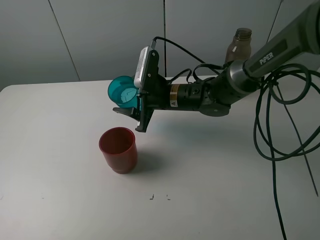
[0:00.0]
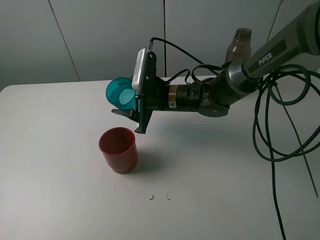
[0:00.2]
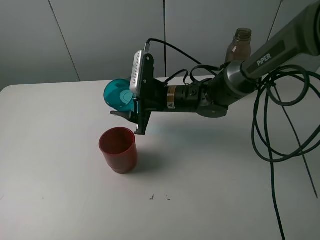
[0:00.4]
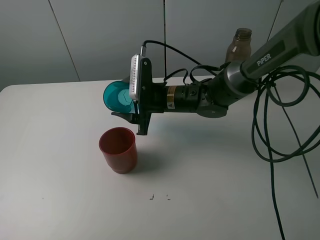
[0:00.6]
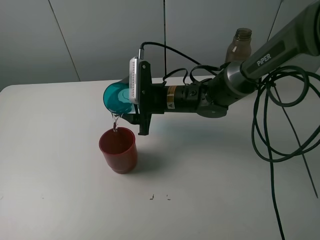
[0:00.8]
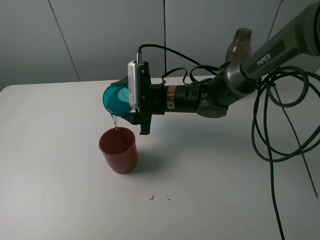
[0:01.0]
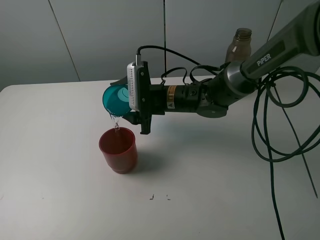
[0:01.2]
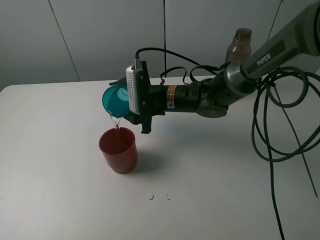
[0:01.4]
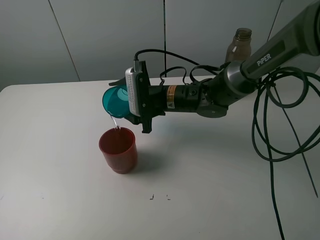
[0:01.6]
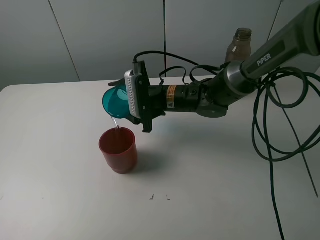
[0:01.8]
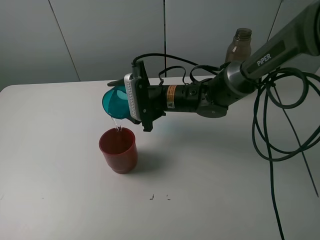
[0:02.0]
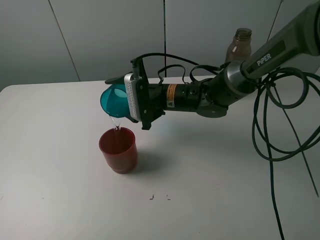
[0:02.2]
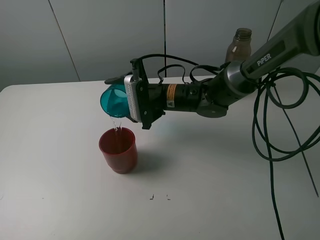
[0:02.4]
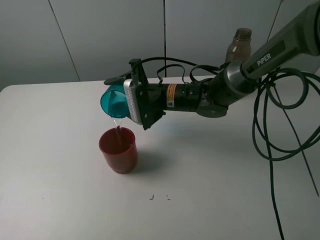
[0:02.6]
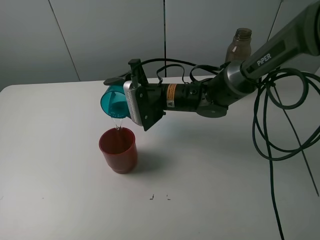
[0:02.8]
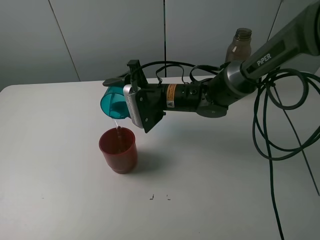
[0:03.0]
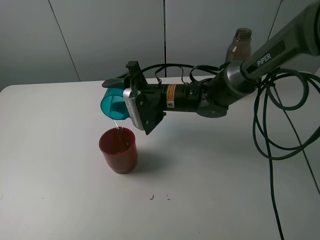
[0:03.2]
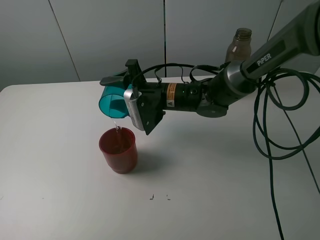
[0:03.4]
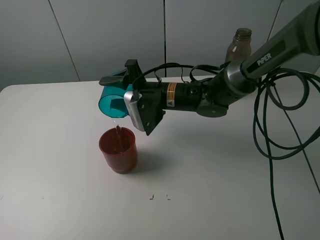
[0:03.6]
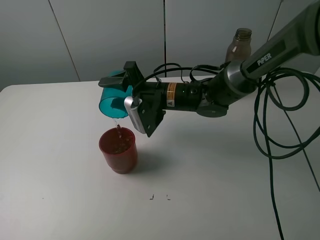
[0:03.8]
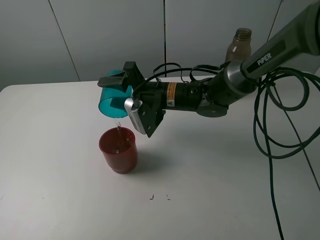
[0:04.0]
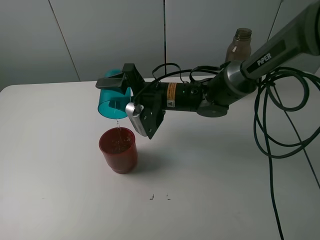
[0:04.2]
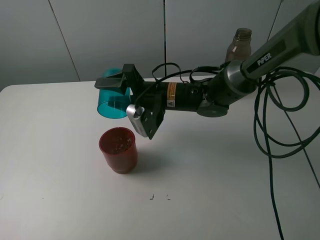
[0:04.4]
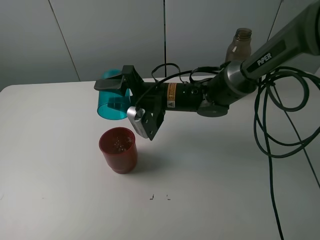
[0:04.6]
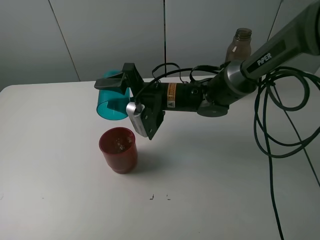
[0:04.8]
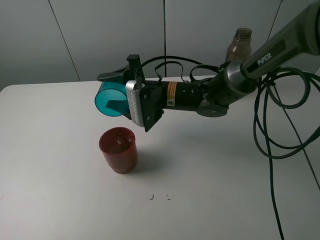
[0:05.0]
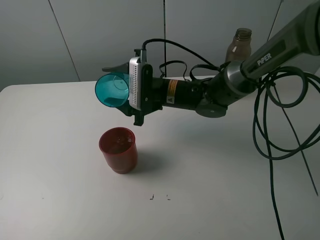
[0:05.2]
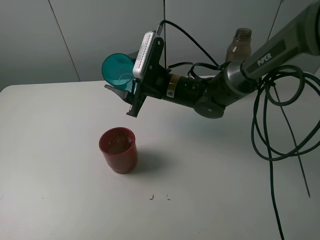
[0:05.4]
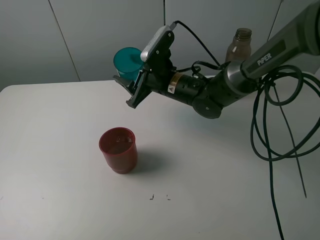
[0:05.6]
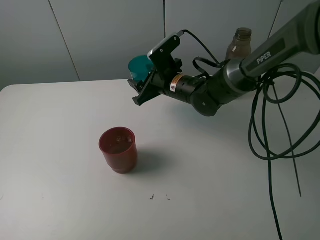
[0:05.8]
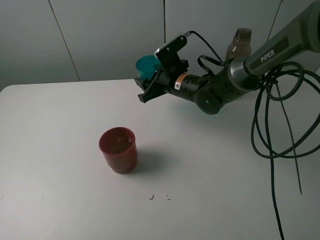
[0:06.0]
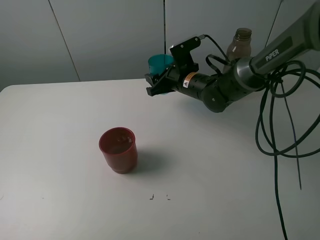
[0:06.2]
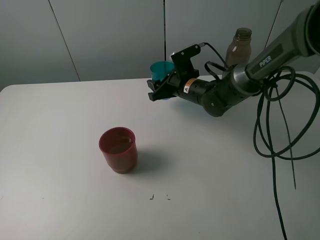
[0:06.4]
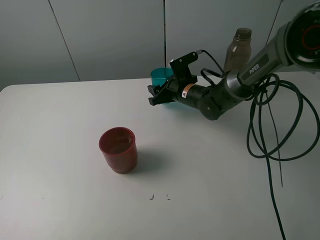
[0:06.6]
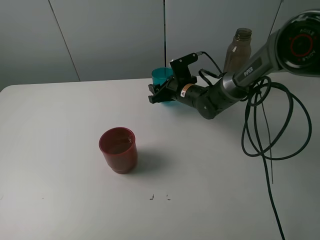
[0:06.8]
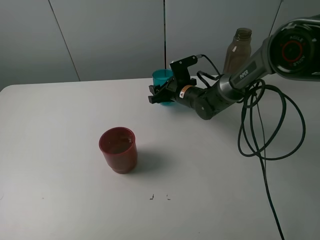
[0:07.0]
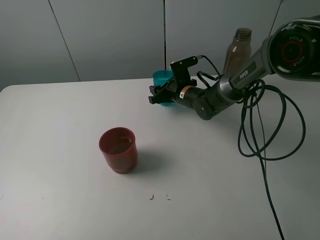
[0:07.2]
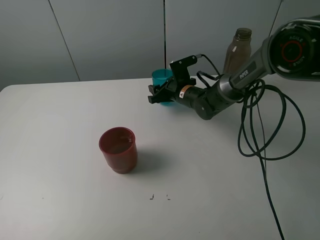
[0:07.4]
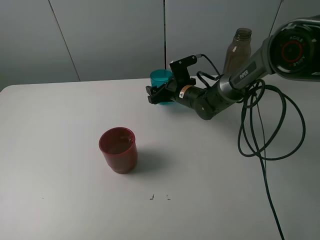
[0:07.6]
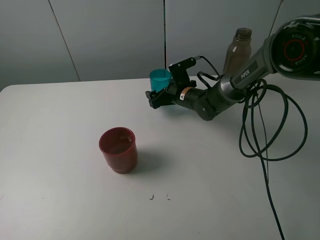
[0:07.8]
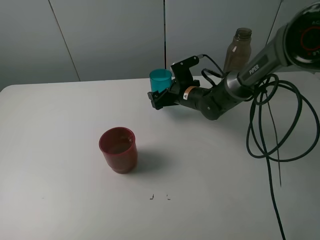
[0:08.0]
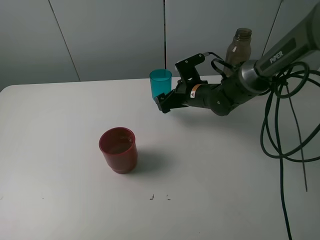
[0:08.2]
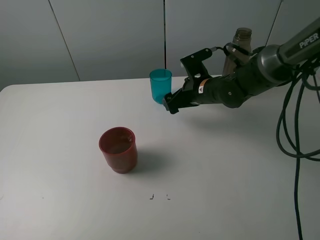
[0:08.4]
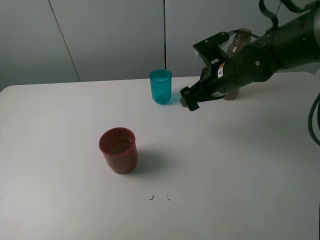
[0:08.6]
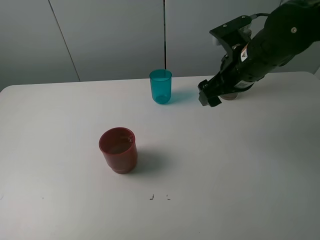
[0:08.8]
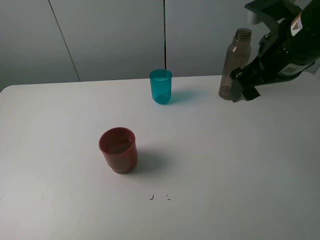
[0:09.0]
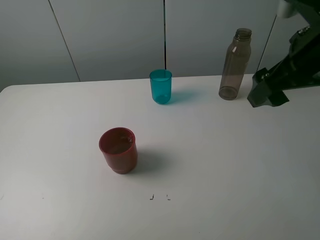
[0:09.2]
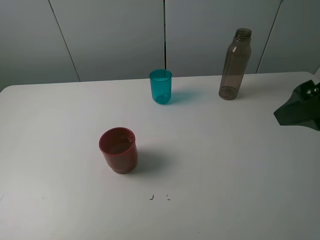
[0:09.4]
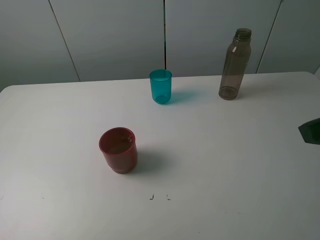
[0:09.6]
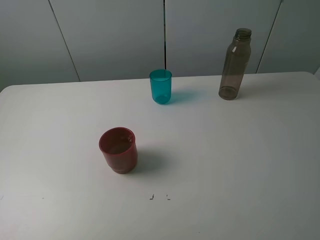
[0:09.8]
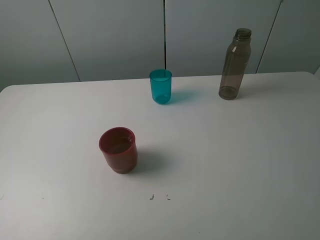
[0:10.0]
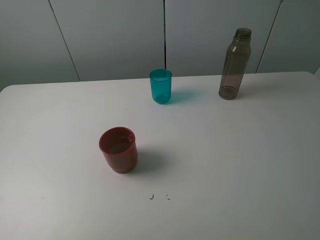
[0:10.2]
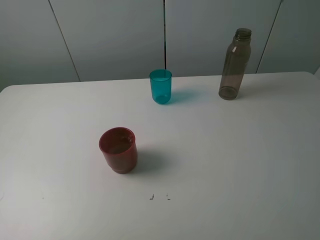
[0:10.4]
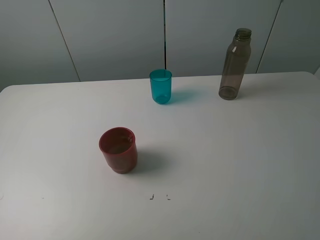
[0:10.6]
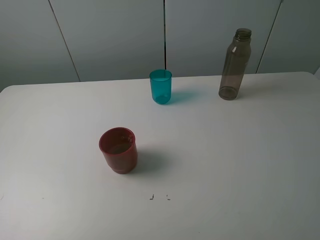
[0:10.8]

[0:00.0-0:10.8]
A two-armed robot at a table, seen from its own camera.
Task of the whole recording: pick up the bottle and pour water into the cup, then pick up the cup containing water and pour it into another cup.
Step, 0:00.0 to 0:05.0: Pour water from blue cup to red cup with the right gripper.
Step, 0:05.2 to 0:07.8: Place the blue cup with the right gripper.
0:04.6 to 0:06.2: The right gripper travels forward and to the right by approximately 10 cm.
0:06.2 to 0:07.8: The right gripper travels downward by about 5 cm, and opens.
0:07.8 to 0:09.2: The right gripper shifts roughly 35 cm upward, backward and to the right.
0:09.2 to 0:10.8: The right gripper travels backward and to the right by some 20 cm.

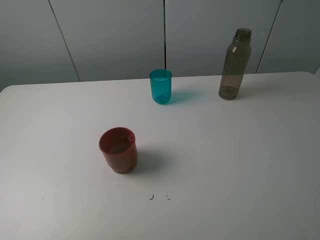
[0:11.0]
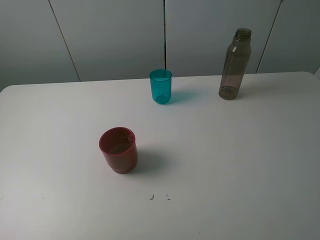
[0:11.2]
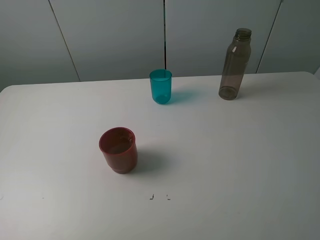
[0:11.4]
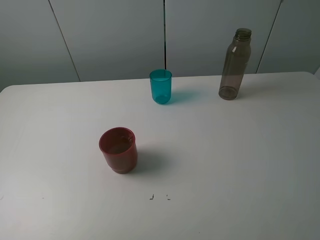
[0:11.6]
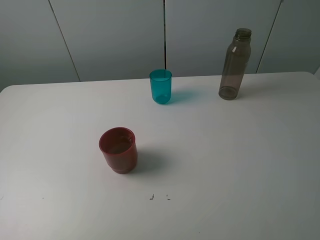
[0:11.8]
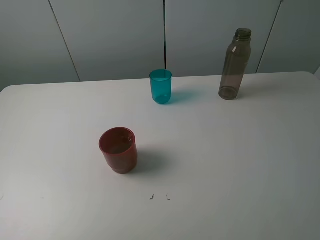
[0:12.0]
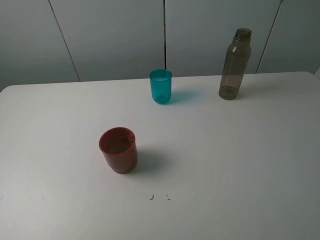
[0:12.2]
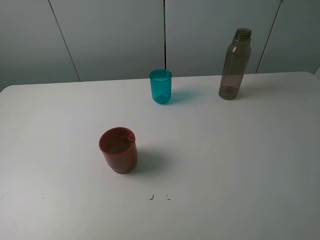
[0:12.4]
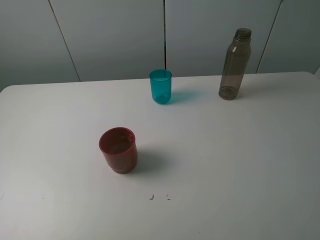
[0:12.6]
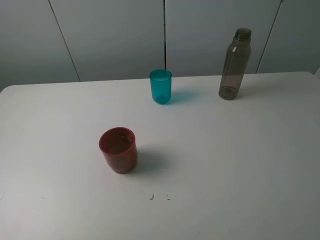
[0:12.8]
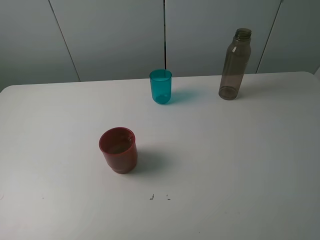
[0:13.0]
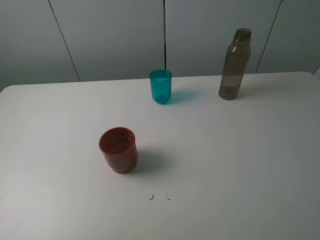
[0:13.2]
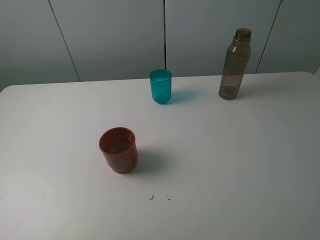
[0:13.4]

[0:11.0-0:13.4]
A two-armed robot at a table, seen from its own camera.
Task of the whole recording: pick up the bottle and pour water into the cup, then pick up the cup containing water and pour it into another cup.
0:11.0 to 0:13.4: The two grippers keep their place.
